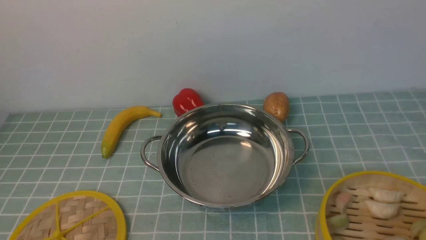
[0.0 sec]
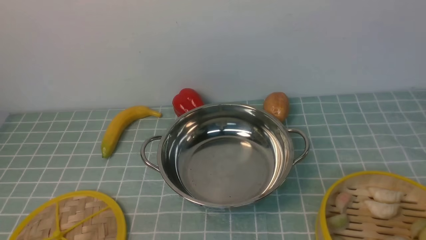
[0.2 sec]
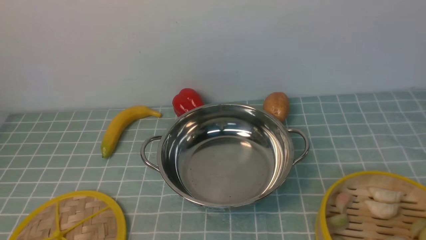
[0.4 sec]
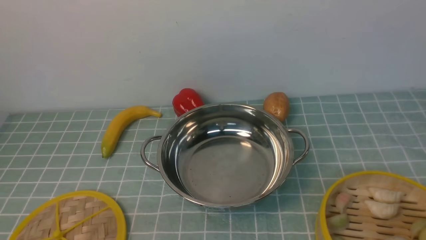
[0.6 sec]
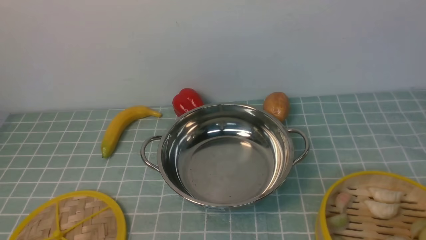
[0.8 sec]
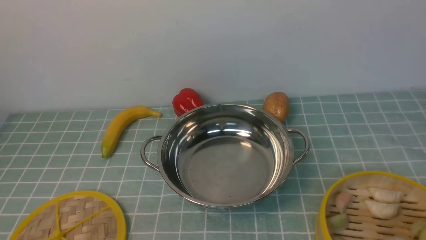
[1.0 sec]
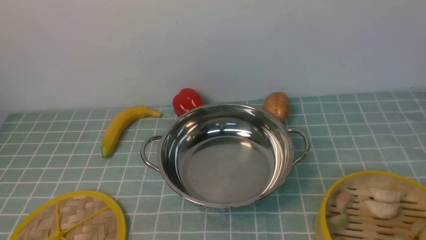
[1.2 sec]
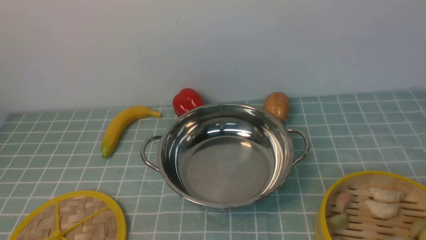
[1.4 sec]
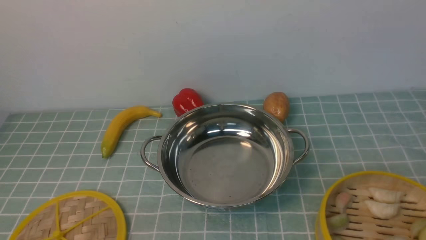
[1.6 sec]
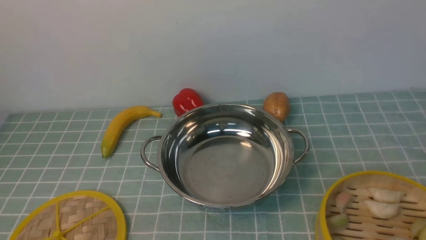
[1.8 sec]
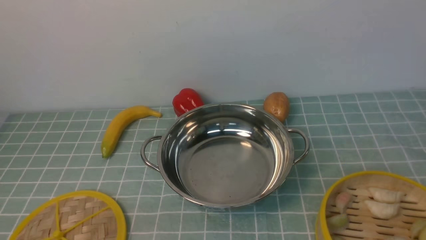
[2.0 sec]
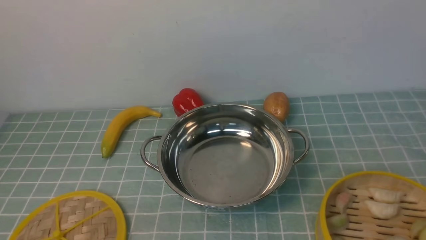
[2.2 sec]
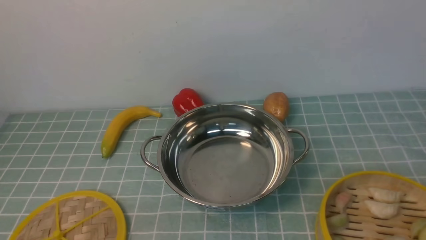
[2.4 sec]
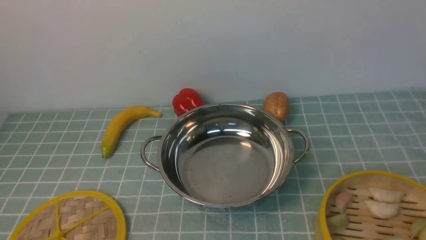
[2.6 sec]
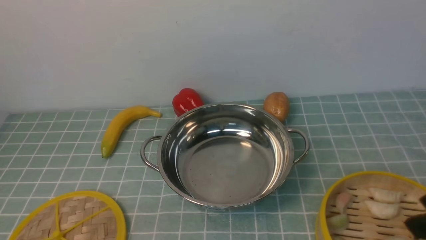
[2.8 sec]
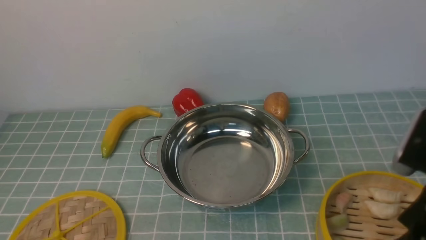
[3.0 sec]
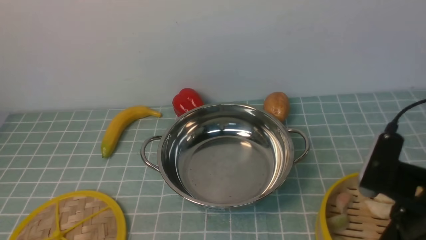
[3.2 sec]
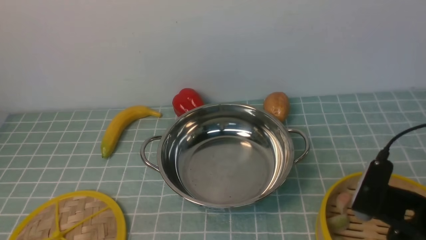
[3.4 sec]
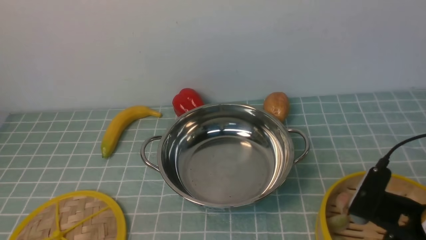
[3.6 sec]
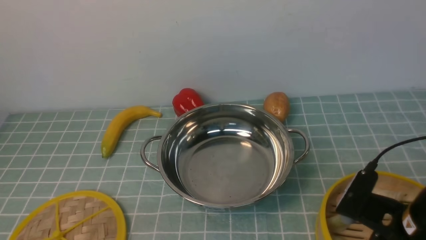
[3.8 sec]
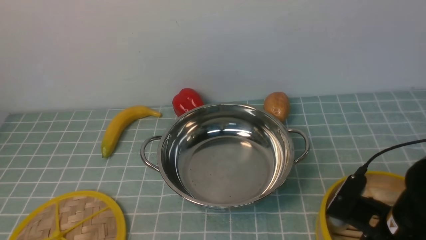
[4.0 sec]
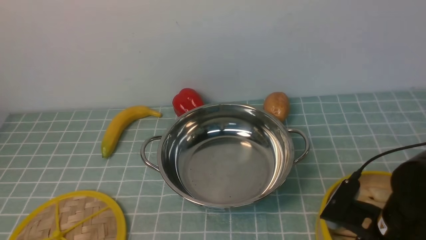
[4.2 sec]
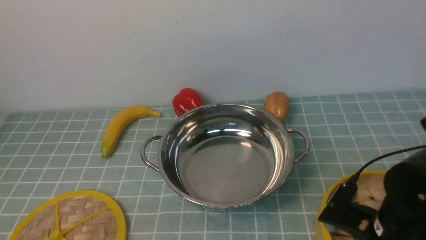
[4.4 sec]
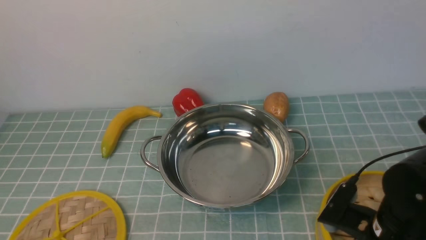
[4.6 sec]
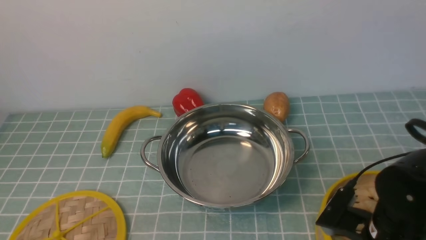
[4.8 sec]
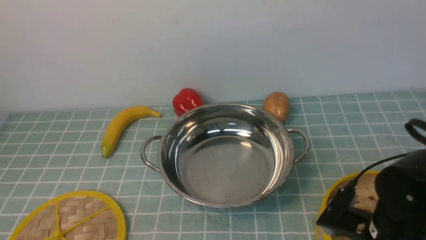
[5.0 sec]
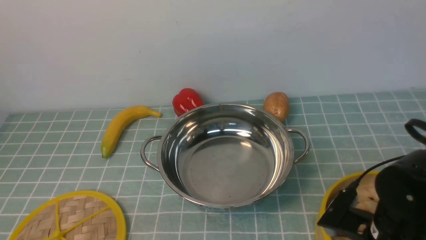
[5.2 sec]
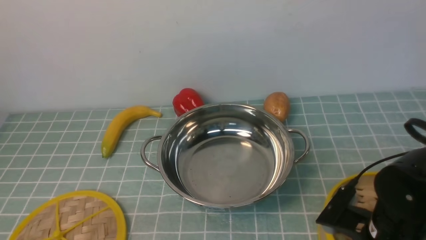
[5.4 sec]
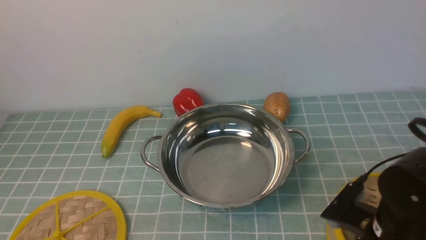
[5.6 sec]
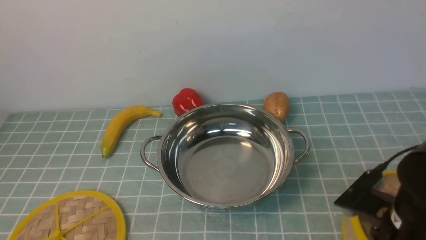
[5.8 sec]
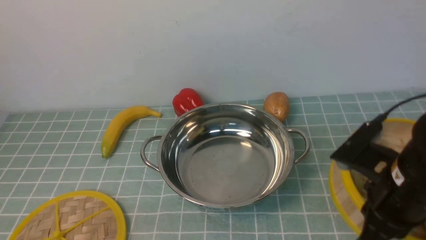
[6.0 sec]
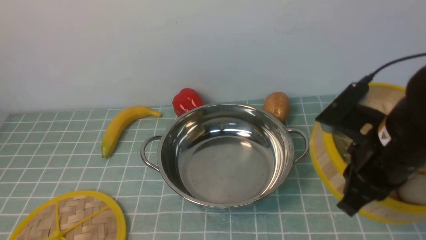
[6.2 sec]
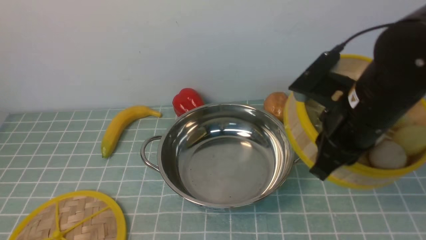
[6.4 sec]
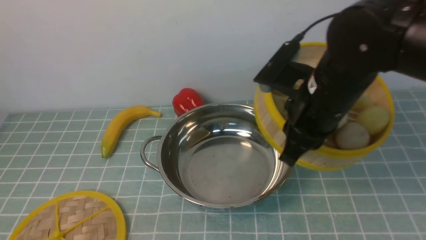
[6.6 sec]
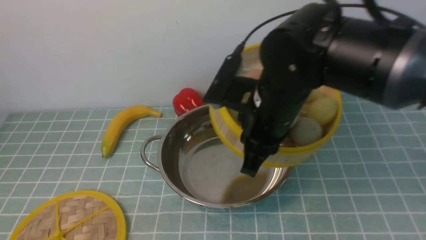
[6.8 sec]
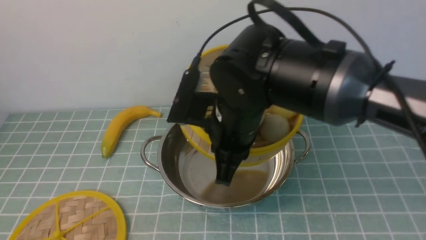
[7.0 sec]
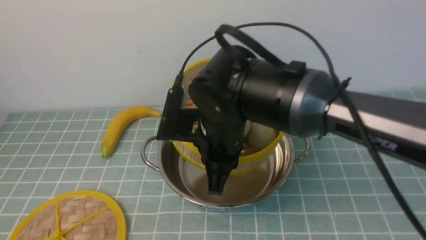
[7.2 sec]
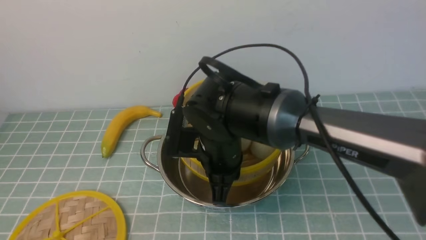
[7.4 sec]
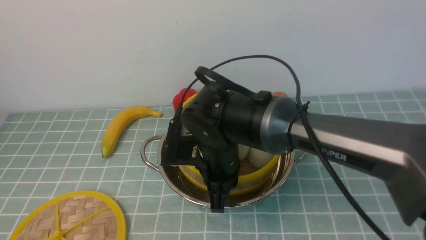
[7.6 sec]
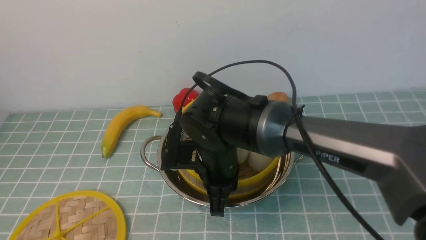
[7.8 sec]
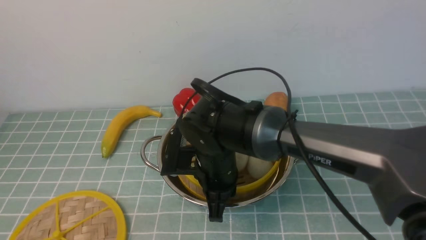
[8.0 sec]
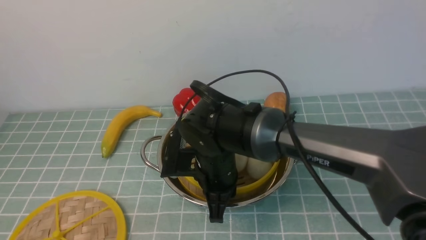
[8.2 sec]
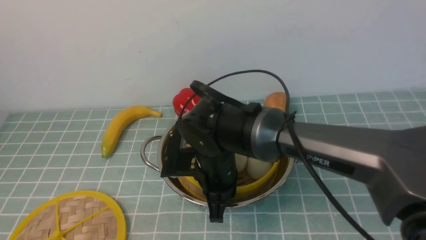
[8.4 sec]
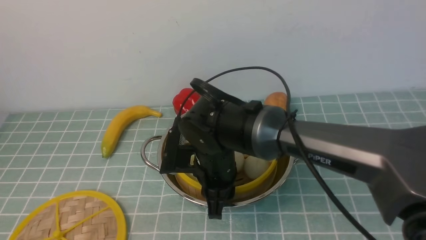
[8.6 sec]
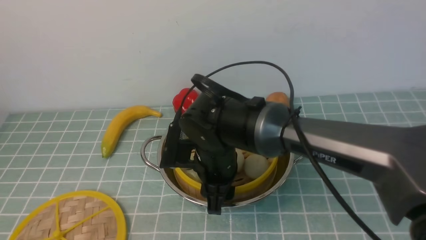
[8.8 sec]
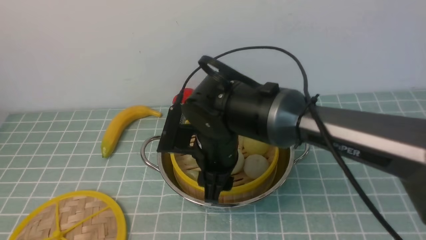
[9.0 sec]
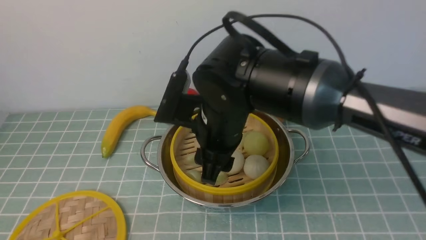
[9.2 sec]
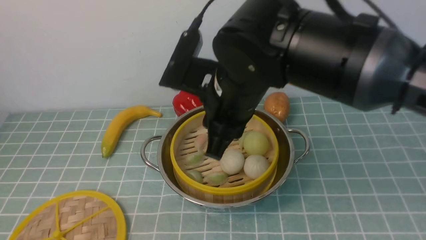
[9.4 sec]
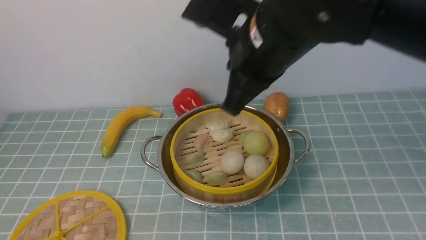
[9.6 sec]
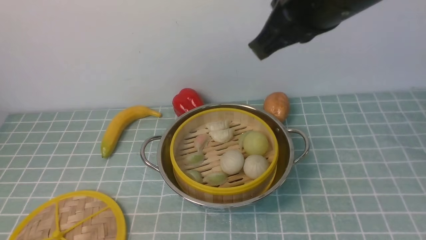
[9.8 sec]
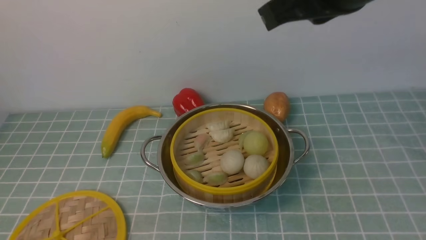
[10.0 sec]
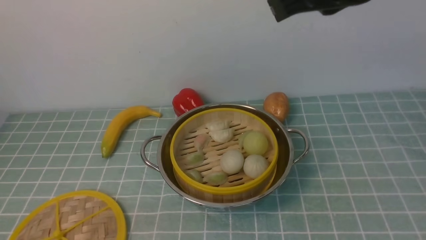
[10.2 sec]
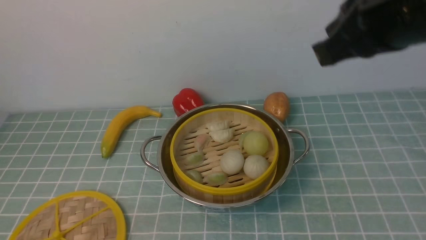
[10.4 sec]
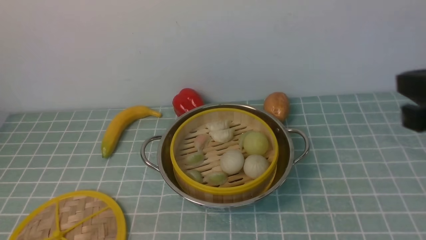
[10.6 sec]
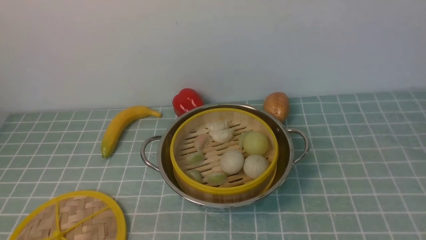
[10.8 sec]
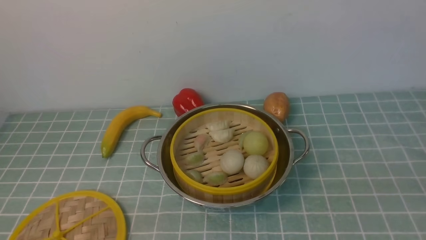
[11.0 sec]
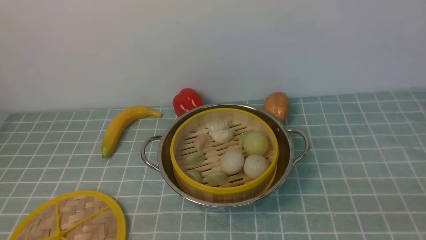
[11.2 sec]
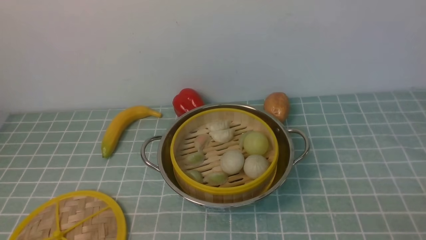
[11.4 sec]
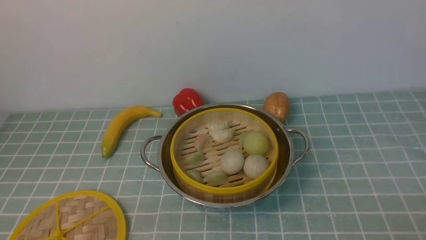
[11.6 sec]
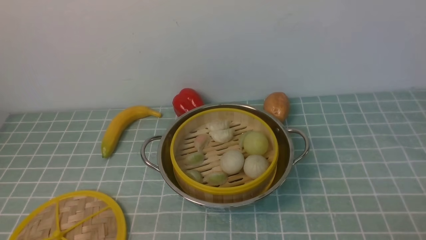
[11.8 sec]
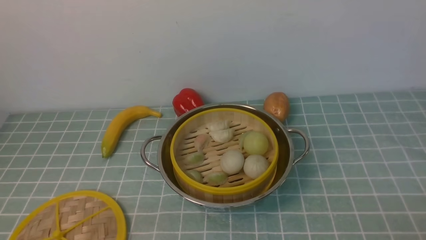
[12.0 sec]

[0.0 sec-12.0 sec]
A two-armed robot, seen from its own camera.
Task of the whole recording: place the steamer in the pot on the blue tablecloth, and put the lid on the steamer.
Step, 0.0 sec to 6.0 sec: use the right arm to lift the steamer closest to it.
Step, 6.2 sec to 9.8 sec: use the right arm to put the steamer into the iron steamer pot in the middle.
1.6 sec to 3.0 sec: The right gripper heads forward and to the left, covering approximately 15 cm, and opens.
3.0 sec to 4.4 sec: The right gripper heads downward, covering about 10 cm.
4.4 sec to 6.0 sec: The right gripper goes about 10 cm upward, and closes.
6.0 sec to 7.6 sec: The right gripper goes roughly 25 cm to the left and forward.
7.6 sec to 9.0 sec: The right gripper opens.
9.0 sec to 10.4 sec: The right gripper is displaced to the right, upward and backward by approximately 30 cm, and closes its fingers.
10.4 sec to 12.0 sec: The right gripper moves downward, backward and to the right, about 30 cm, and opens up.

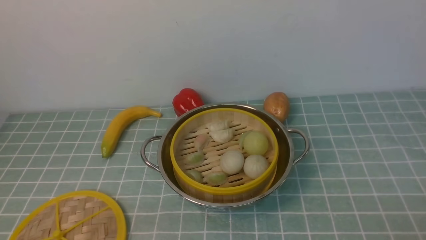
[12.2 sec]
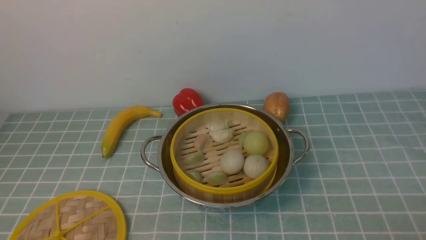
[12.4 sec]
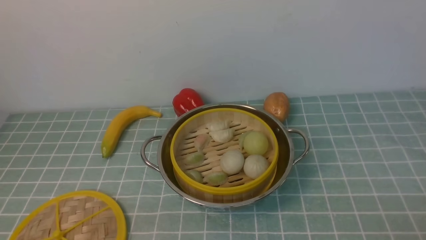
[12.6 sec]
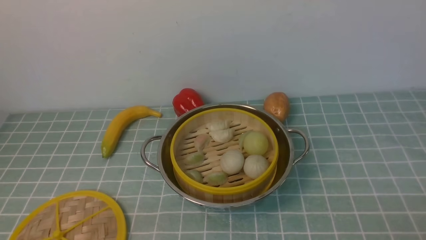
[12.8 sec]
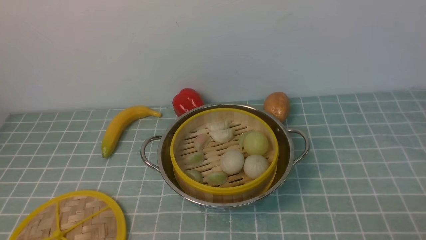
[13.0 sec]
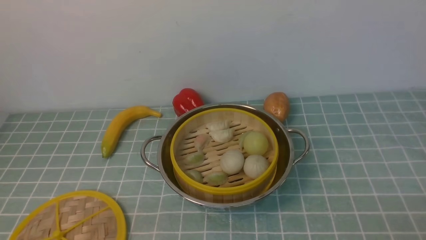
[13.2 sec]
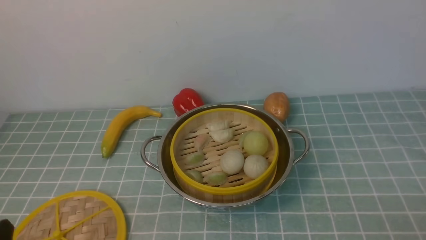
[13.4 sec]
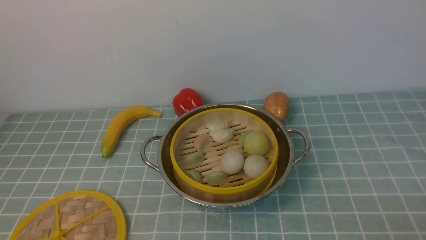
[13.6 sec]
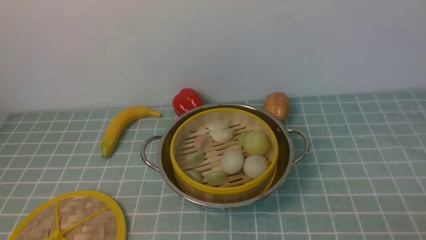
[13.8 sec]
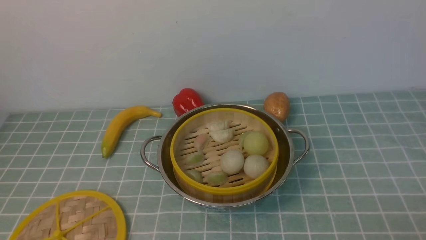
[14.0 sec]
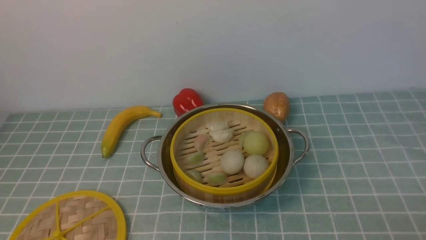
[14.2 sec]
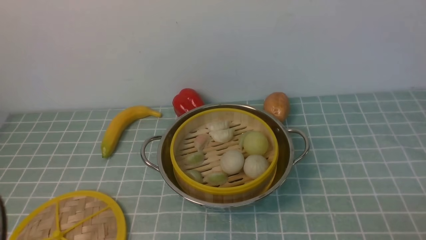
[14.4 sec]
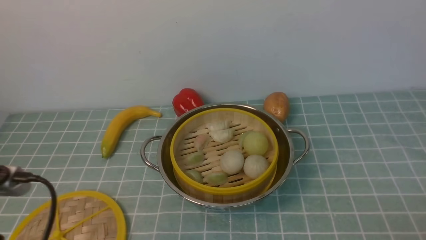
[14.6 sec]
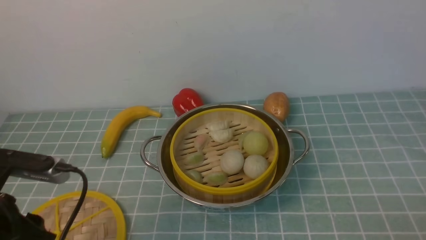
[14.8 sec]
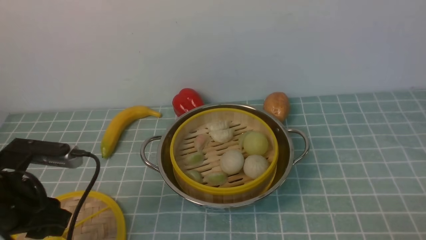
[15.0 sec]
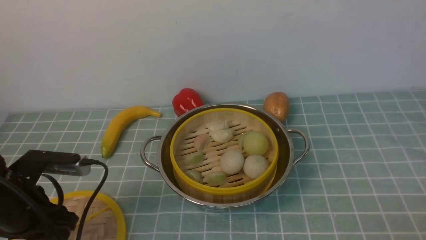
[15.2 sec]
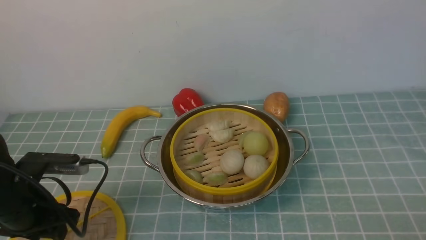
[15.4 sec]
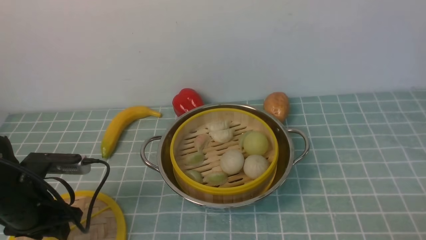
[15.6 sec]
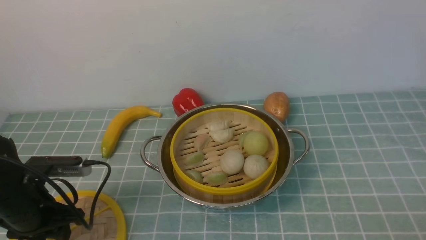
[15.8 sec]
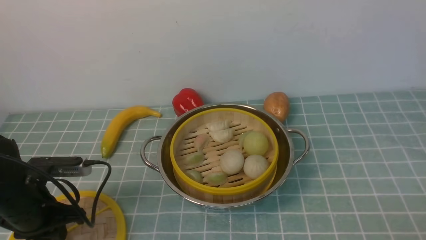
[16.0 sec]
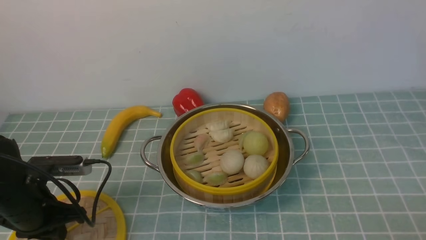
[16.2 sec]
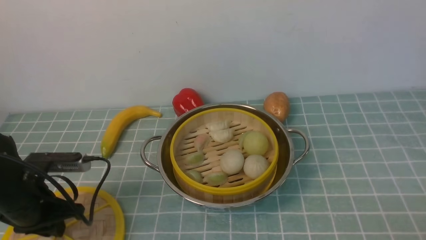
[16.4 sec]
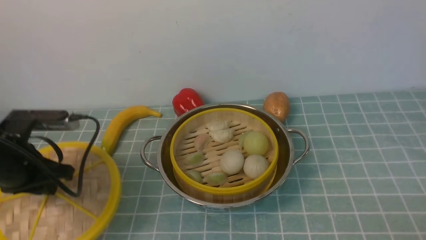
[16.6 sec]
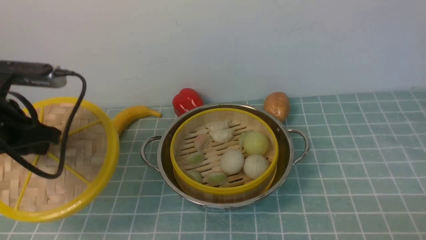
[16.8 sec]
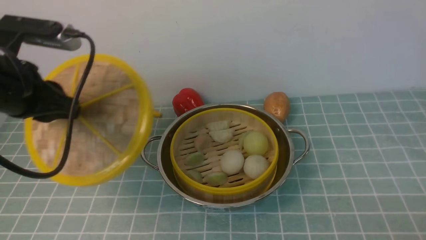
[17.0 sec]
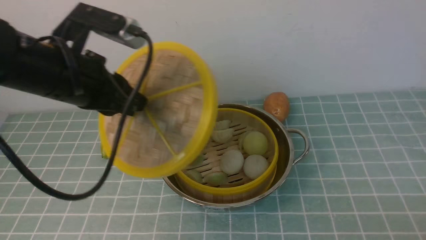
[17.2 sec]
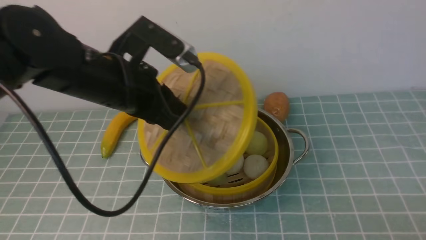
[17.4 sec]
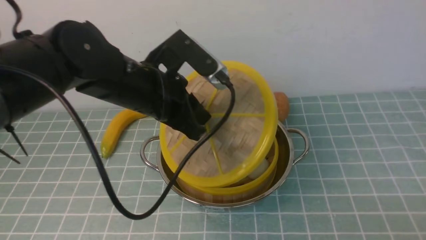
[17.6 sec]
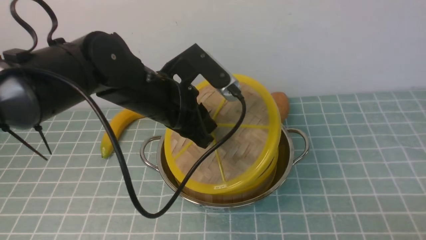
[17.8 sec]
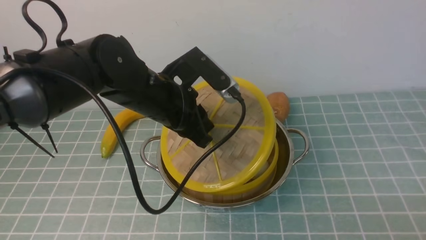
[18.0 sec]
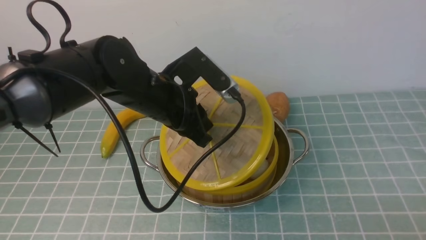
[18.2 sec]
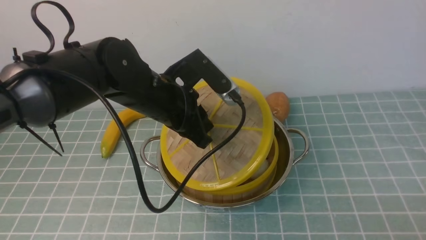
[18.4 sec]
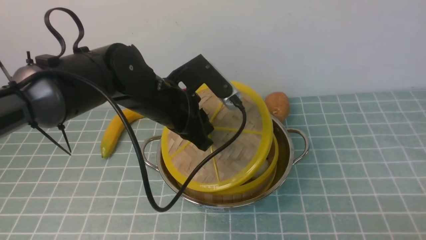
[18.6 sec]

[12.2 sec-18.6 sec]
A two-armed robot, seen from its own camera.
Task of the whole recording: place the steamer in the pot on the blue tablecloth, and put the lid on the steamer.
Step, 12.2 sec to 16.8 sec: use the left arm to lift the lid of the steamer.
13.8 sec to 15.4 sec: The left gripper is displaced forward by roughly 20 cm.
15.4 sec to 17.0 sec: The left gripper goes about 15 cm upward, and closes.
17.0 sec to 18.6 sec: The left gripper goes approximately 15 cm to the right and downward.
